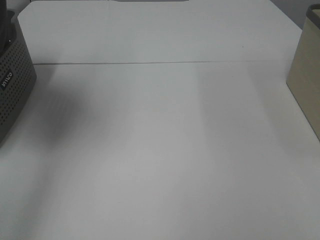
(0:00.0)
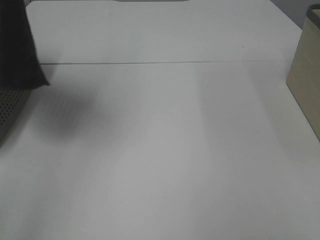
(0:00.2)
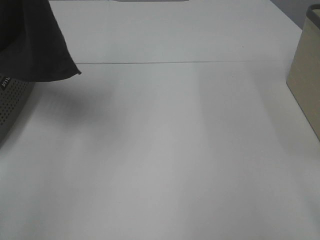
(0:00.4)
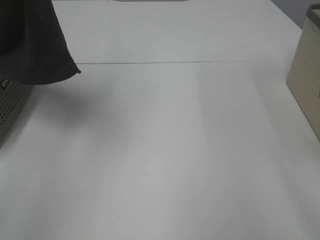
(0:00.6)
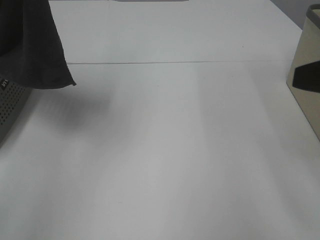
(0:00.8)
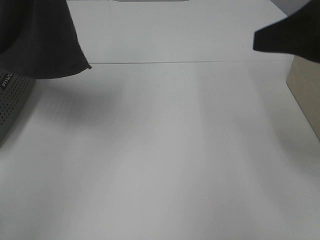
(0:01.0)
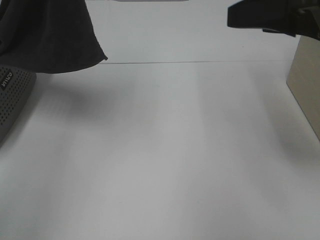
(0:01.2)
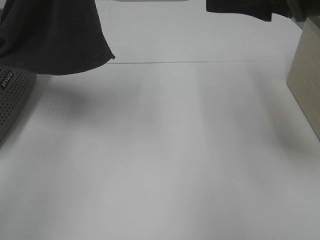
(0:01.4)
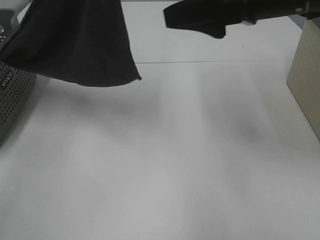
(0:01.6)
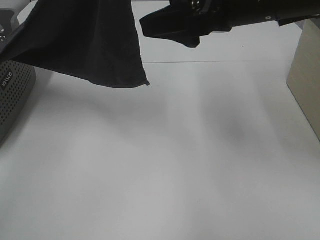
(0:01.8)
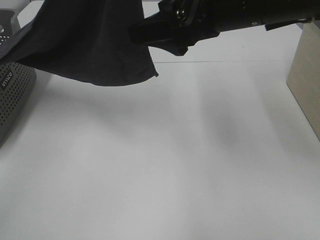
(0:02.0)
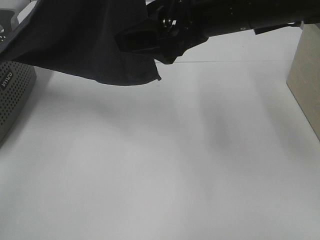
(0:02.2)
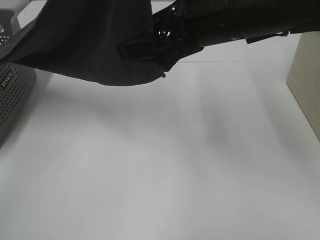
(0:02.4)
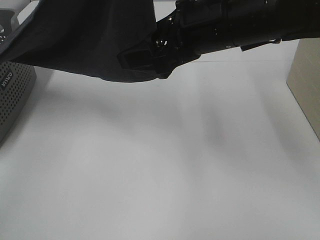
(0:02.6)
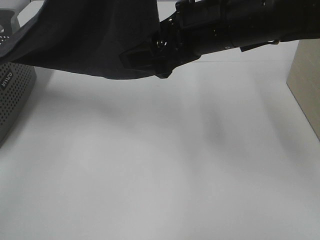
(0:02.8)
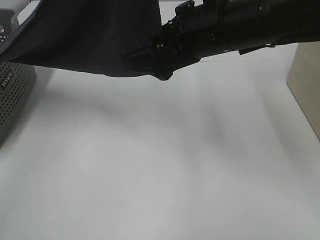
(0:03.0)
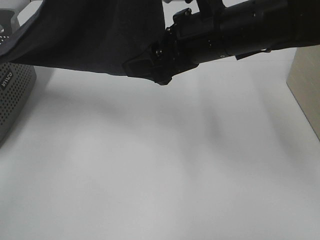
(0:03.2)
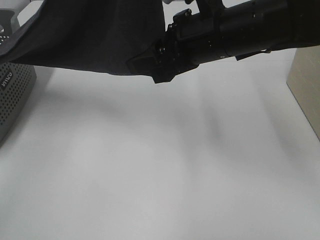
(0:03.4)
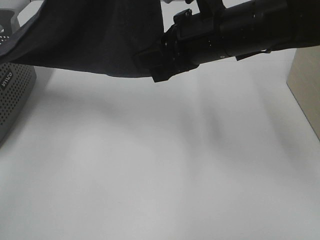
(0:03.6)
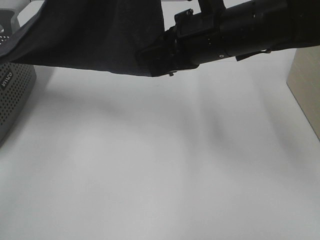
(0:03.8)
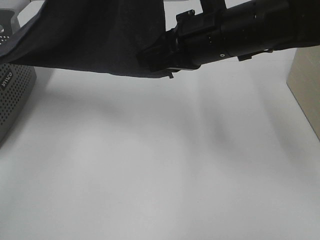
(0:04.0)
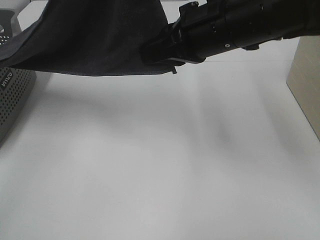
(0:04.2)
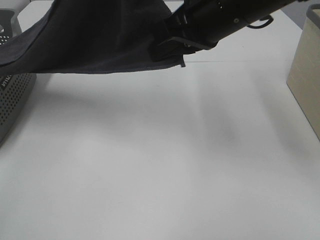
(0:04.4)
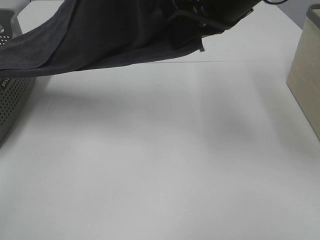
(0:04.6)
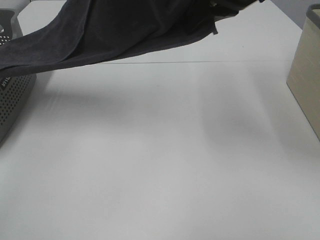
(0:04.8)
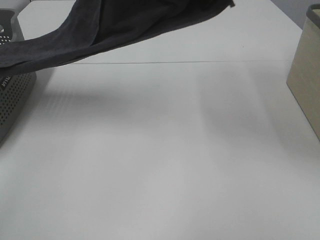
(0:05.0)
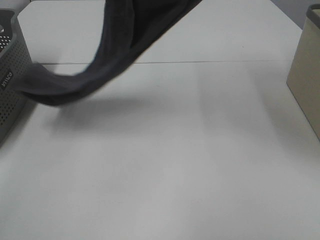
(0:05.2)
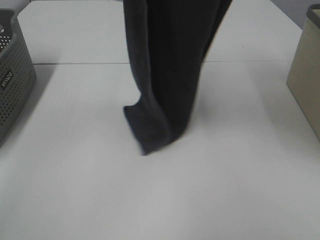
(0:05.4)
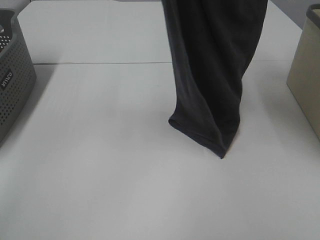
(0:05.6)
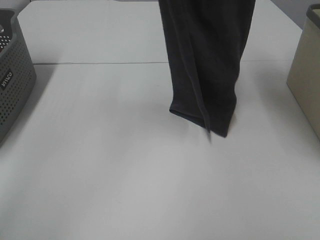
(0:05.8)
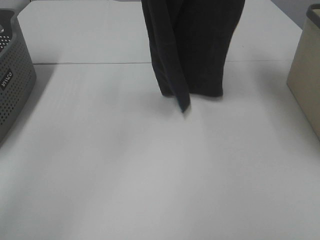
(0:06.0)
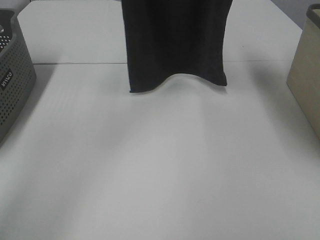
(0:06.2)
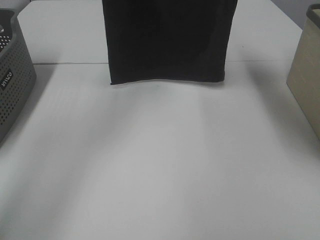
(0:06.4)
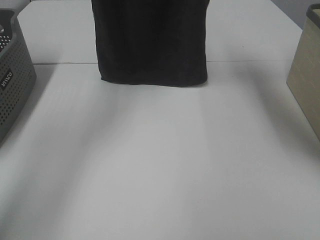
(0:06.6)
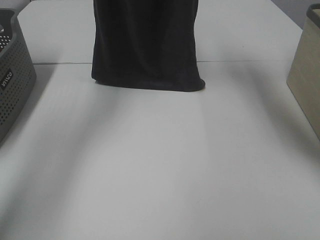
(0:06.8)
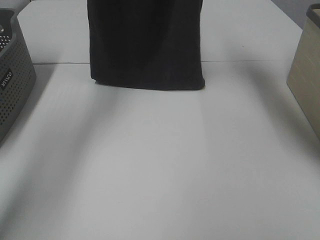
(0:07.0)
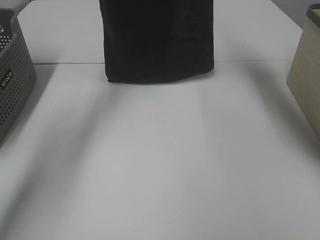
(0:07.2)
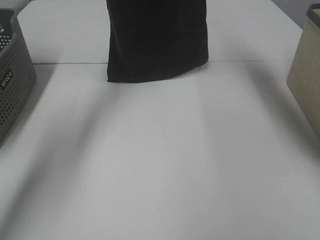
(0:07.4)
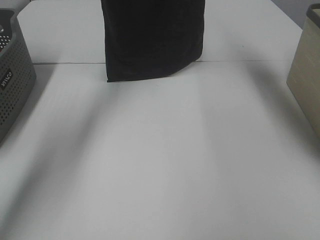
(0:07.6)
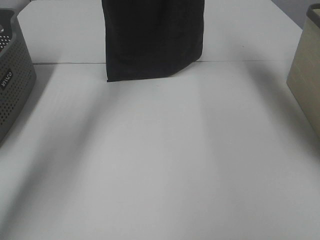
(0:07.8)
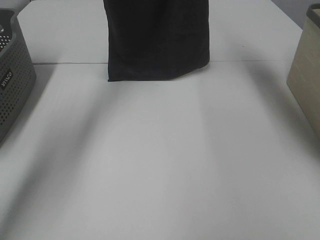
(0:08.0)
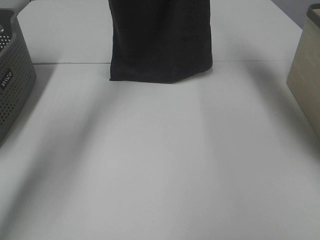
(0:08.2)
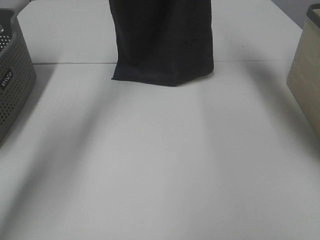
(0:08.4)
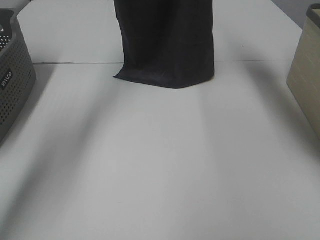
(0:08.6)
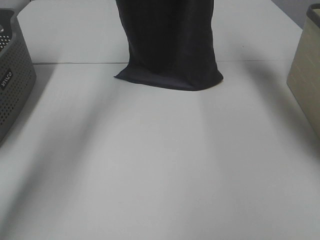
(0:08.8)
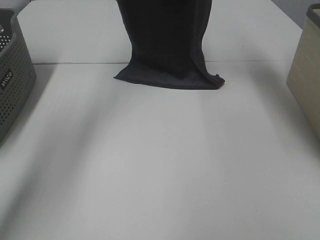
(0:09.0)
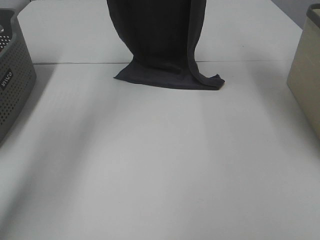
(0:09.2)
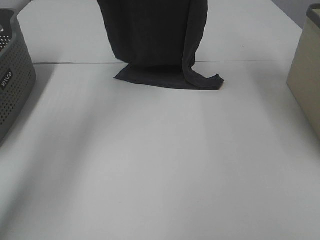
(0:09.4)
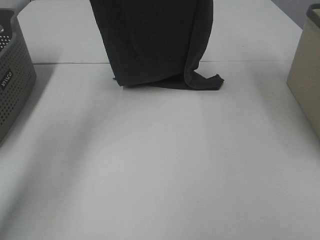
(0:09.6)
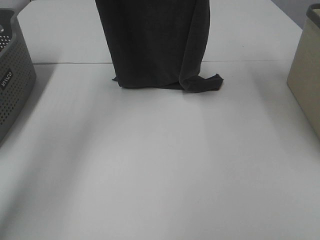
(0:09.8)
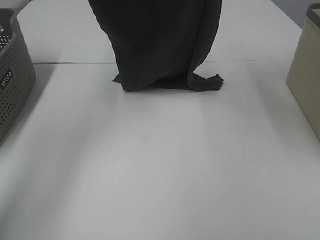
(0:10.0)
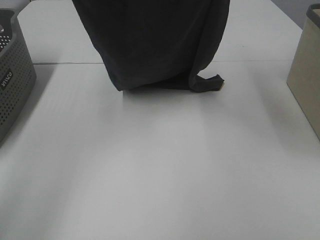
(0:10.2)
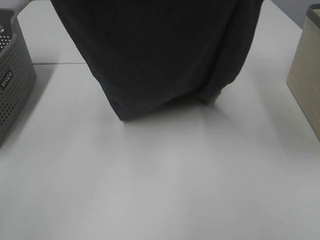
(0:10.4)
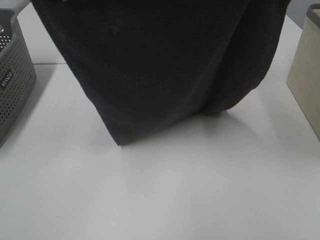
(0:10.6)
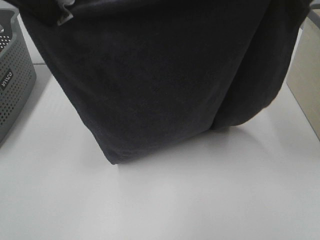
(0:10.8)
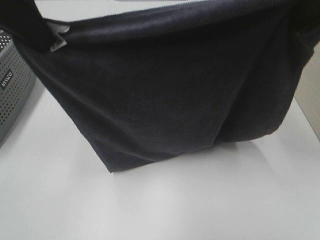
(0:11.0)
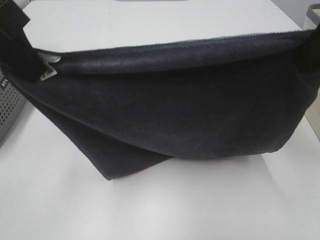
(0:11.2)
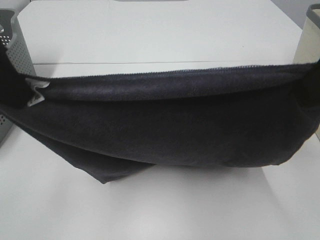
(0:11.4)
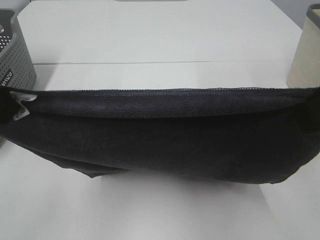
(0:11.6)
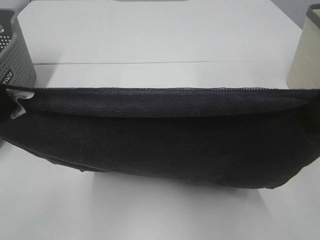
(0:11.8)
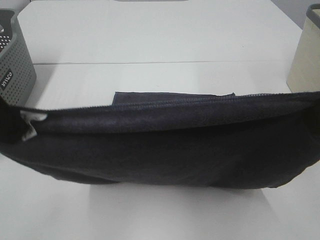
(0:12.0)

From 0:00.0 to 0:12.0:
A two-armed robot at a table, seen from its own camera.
Task of the whole recording: Remove the towel and place it.
Step, from 0:00.0 to 0:04.0: Right hand: grab a corner of the grey towel and straighten it.
Step, from 0:04.2 to 0:10.2: Left hand: spread the grey towel flat on the table.
Step, from 0:04.2 to 0:10.2: Right hand: spread the grey towel flat on the table.
From 0:00.0 to 0:01.6: The right gripper travels forward and to the left by some 30 cm, while the left gripper goes about 10 cm to the right.
From 0:01.6 to 0:03.0: The right gripper moves to the left and downward, roughly 10 cm.
From 0:03.0 to 0:04.4: The right gripper closes up.
From 0:04.4 to 0:06.0: The right gripper moves upward, approximately 25 cm. The left gripper is displaced forward by about 10 cm.
From 0:06.0 to 0:07.6: The grippers both shift forward and downward by some 15 cm.
From 0:09.0 to 0:10.4: Both grippers move backward, approximately 20 cm.
From 0:10.4 to 0:12.0: The two grippers go approximately 15 cm backward and downward.

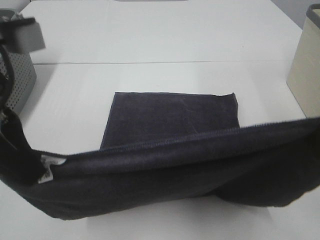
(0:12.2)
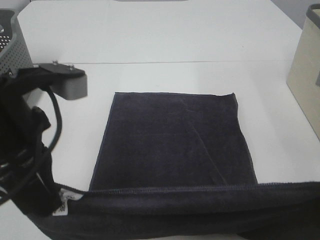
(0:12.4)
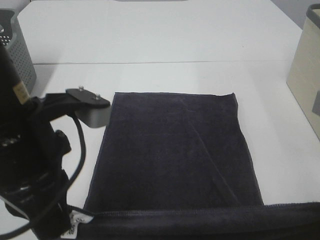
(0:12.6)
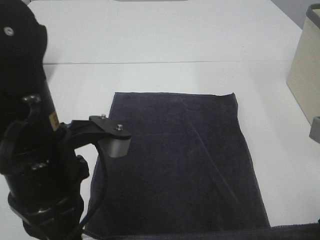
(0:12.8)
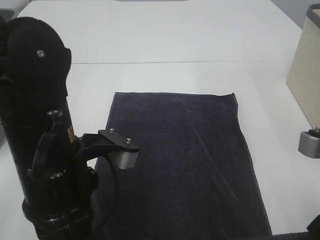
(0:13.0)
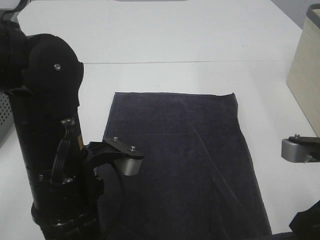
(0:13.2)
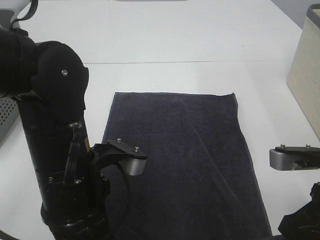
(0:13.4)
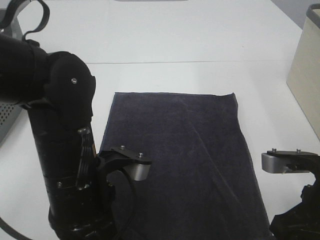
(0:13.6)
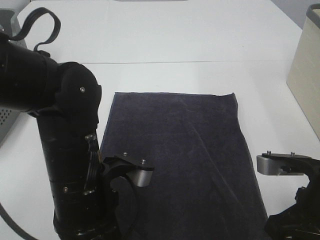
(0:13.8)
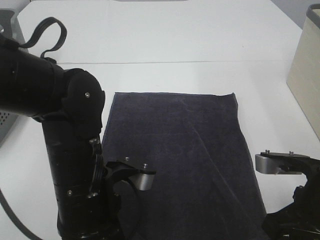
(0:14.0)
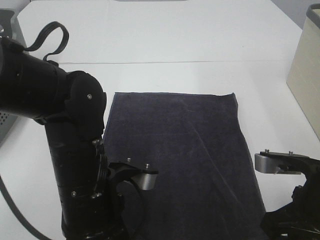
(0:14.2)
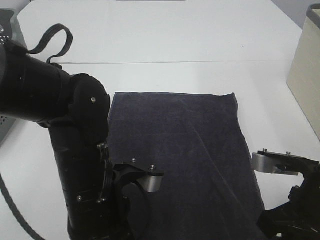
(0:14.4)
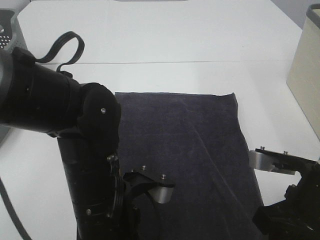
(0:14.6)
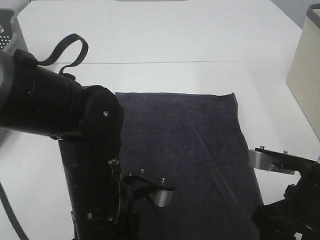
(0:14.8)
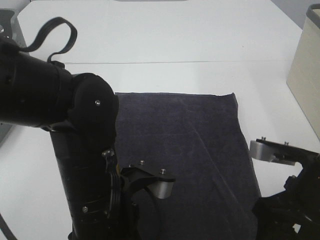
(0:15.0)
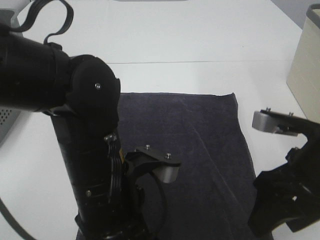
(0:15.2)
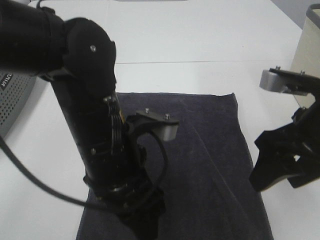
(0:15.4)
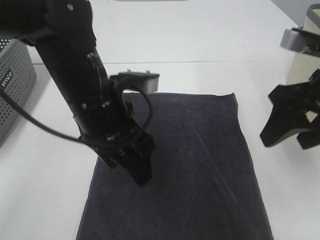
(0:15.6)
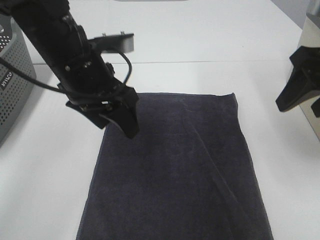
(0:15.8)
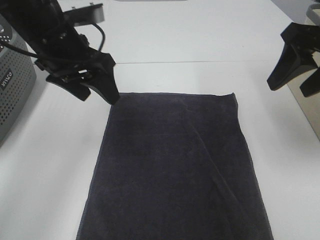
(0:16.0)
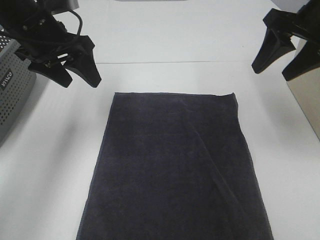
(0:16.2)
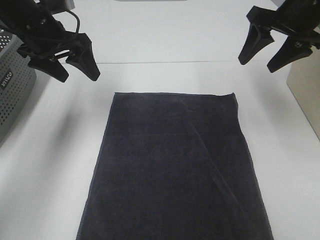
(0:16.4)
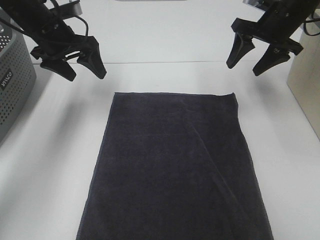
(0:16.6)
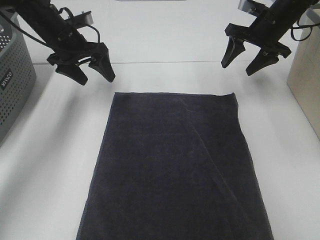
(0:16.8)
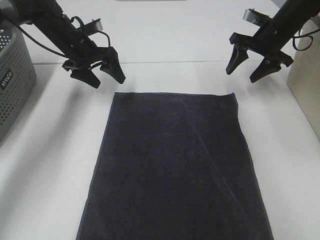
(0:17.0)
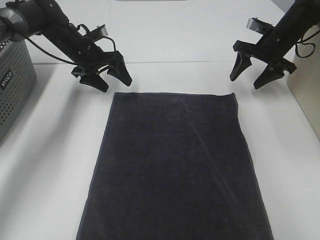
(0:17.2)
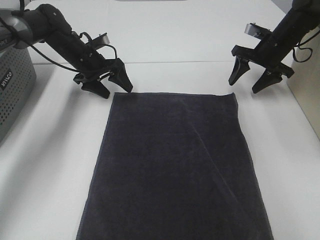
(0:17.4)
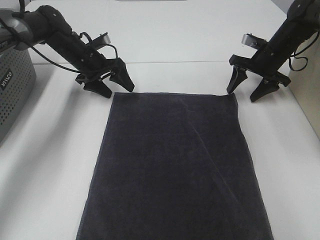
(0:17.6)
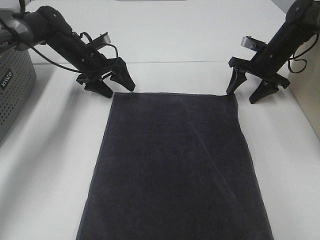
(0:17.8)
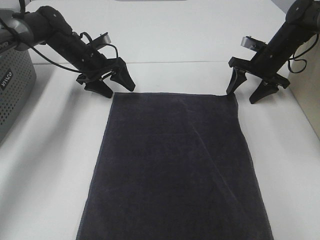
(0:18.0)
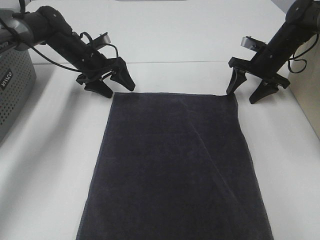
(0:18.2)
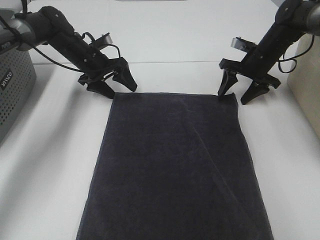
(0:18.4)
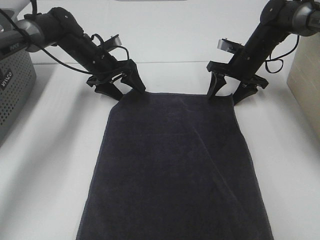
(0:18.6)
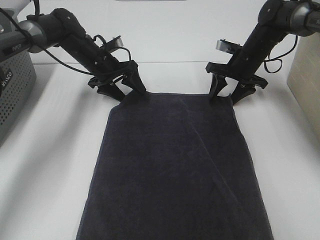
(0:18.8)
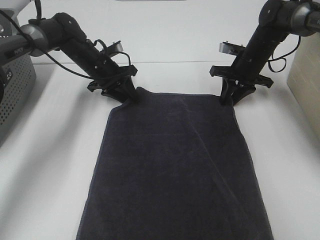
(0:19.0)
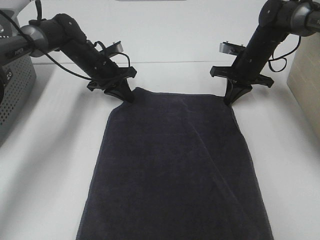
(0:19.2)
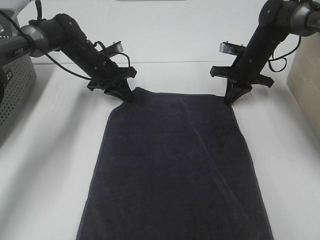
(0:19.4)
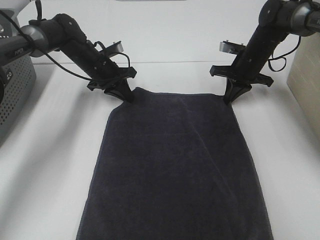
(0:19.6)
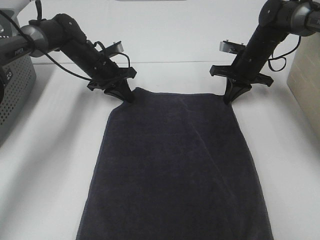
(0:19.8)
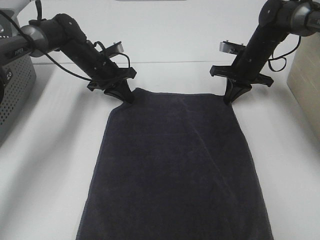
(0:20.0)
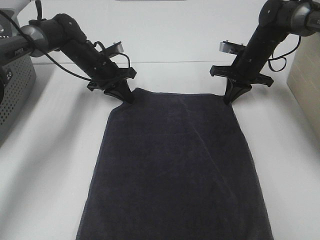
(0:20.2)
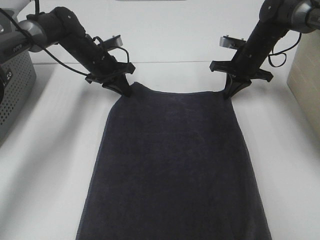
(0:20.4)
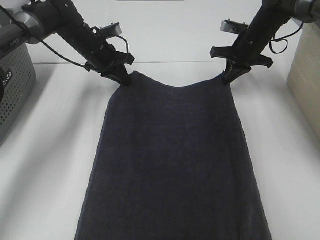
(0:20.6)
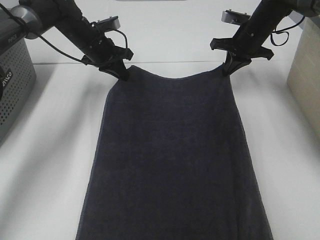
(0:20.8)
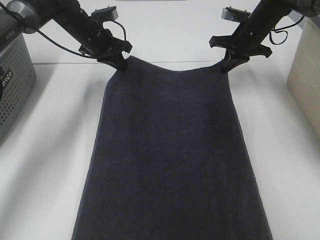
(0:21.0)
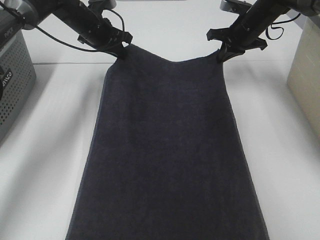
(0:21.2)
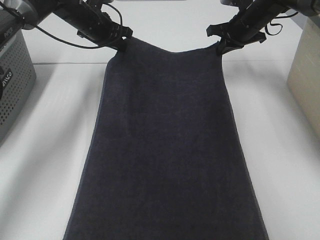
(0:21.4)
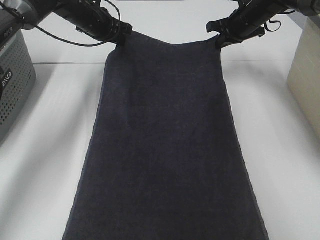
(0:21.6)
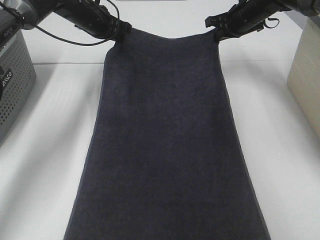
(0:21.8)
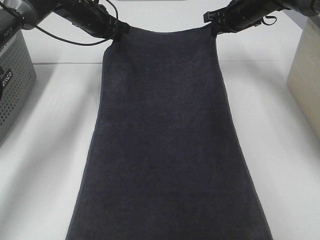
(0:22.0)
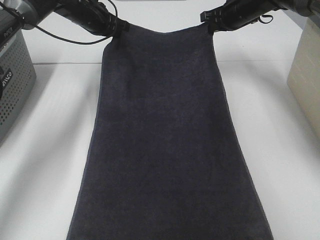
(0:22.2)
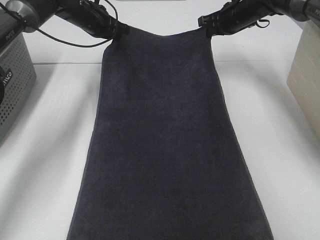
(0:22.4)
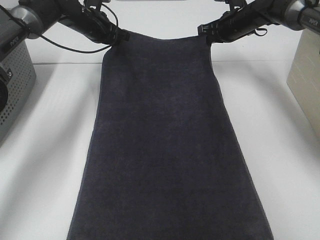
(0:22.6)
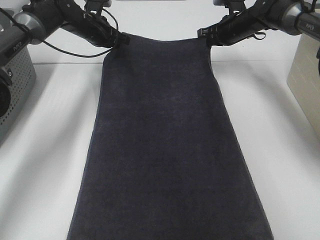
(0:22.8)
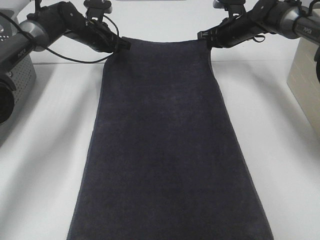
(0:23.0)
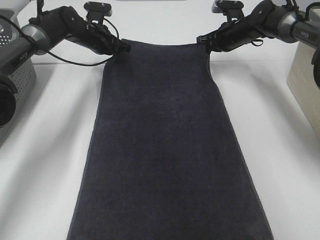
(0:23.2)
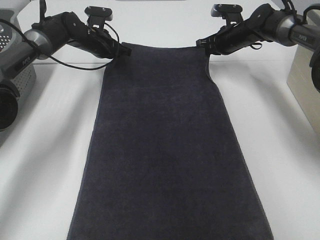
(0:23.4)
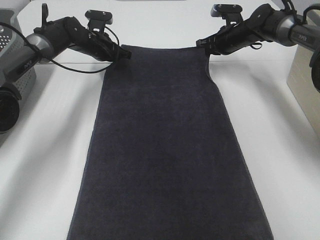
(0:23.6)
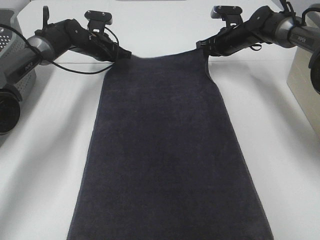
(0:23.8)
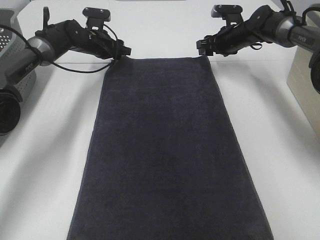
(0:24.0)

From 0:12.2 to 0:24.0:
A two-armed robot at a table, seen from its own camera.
Task of the whole recording: Remove the towel and place it.
Step, from 0:12.2 to 0:18.0: Left hand:adjust the gray towel.
Step, from 0:12.2 to 0:18.0: Right hand:adjust the gray towel.
From 0:12.2 to 0:13.6: The right gripper goes about 15 cm downward. Meanwhile the left gripper heads downward and to the right, covering some 15 cm.
From 0:13.6 to 0:15.2: The left gripper opens its fingers. Meanwhile the right gripper opens up.
From 0:15.2 to 0:16.6: The right gripper moves forward, about 30 cm, while the left gripper heads forward and to the left, covering approximately 30 cm.
From 0:16.6 to 0:18.2: The right gripper heads downward, covering some 10 cm; the left gripper goes approximately 15 cm downward and forward.
From 0:18.2 to 0:19.6: The right gripper closes. The left gripper closes.
From 0:19.6 to 0:21.0: Both grippers travel together upward, roughly 5 cm.
From 0:22.6 to 0:24.0: The right gripper opens up. The left gripper heads downward, covering about 5 cm, and opens up.
